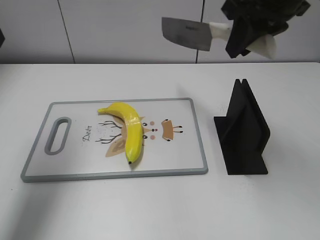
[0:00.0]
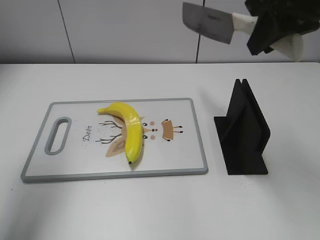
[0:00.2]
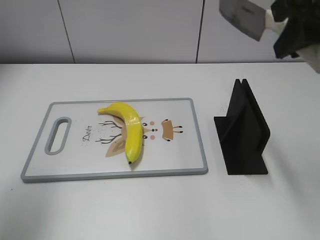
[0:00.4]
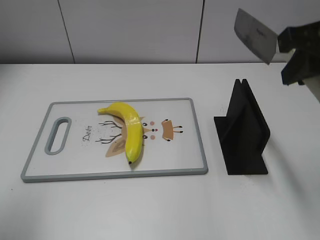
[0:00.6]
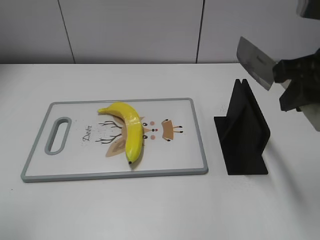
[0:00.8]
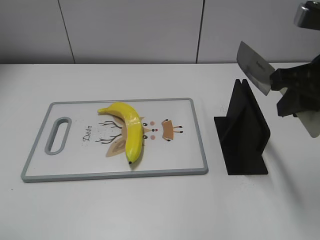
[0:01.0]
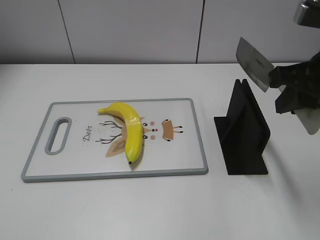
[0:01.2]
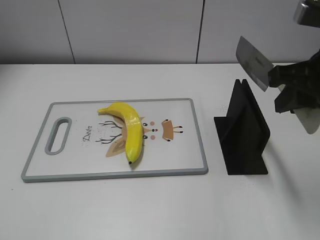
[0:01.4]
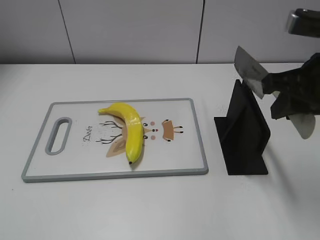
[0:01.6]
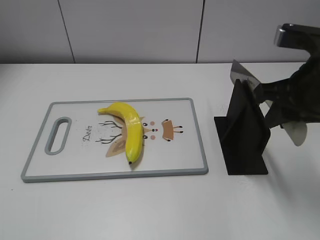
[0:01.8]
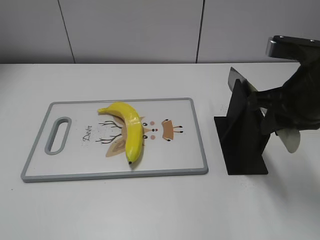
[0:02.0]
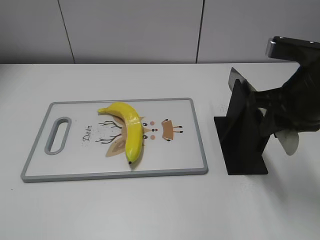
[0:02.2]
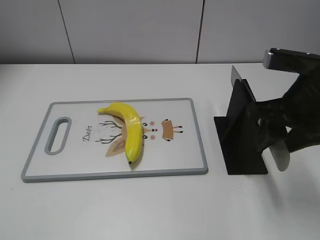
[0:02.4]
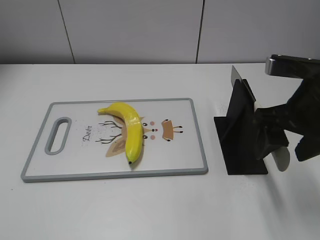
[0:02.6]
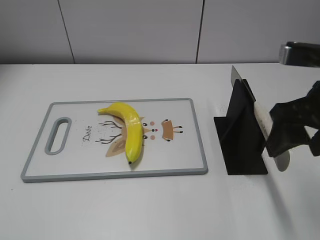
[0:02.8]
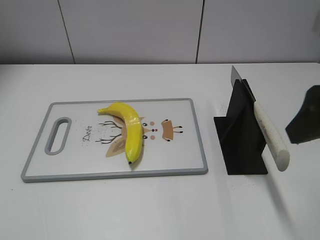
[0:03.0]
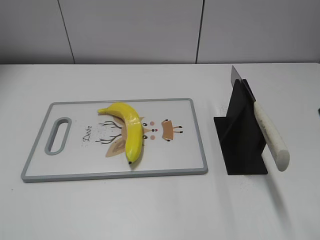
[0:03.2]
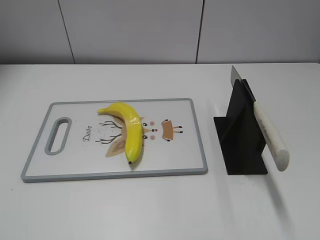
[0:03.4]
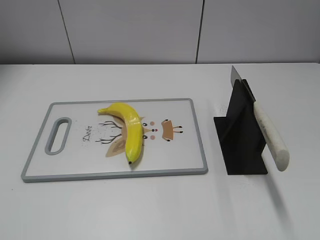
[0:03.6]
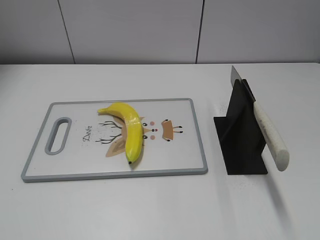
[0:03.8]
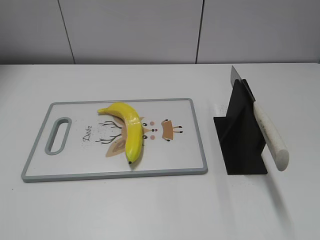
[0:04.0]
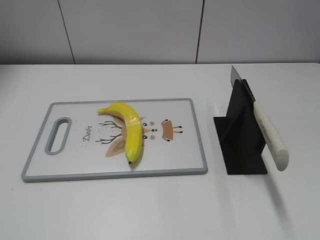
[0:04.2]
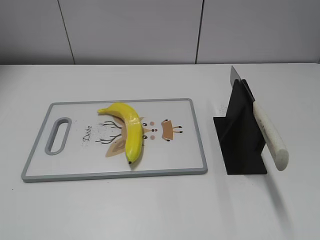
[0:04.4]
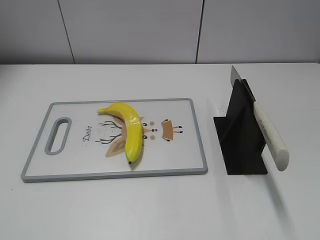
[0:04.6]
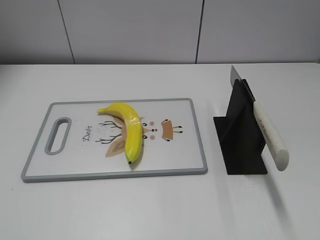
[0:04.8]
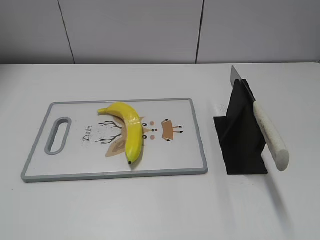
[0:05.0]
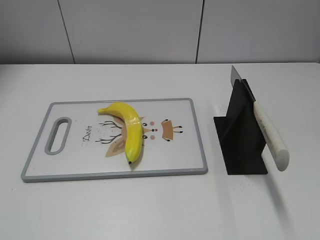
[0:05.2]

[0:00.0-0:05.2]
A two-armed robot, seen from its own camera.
Task of the whole recording: cut plastic banana.
Step, 0:00.0 to 0:01.0: Lift the knife with your right hand.
Step, 0:01.2 to 0:05.2: Place the knife on the storage rack with your right hand.
0:00.0 to 0:01.8: The left gripper travels backward by about 30 cm, while the right gripper goes some 10 cm downward and backward.
0:01.8 to 0:03.4: The right gripper shifts roughly 20 cm backward and upward, and opens up.
